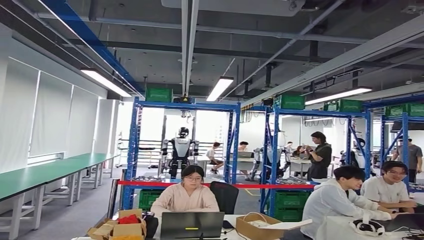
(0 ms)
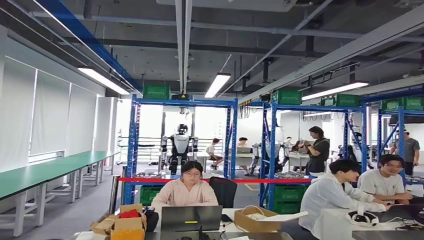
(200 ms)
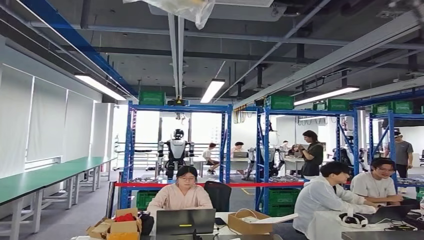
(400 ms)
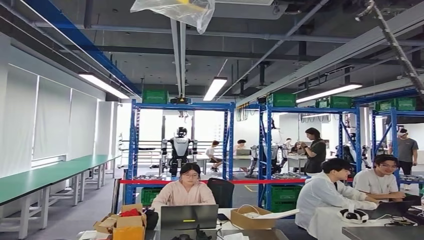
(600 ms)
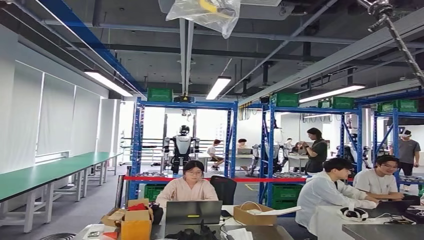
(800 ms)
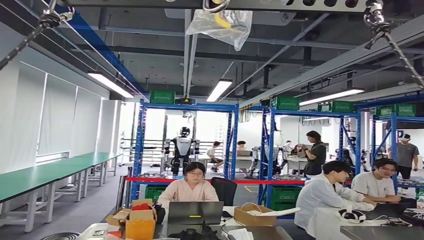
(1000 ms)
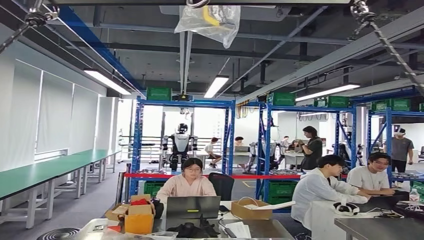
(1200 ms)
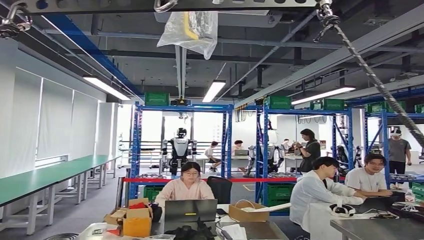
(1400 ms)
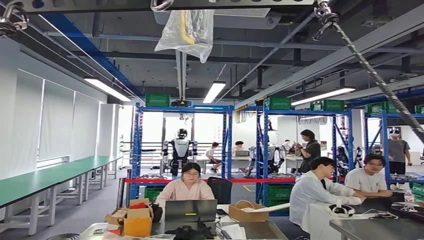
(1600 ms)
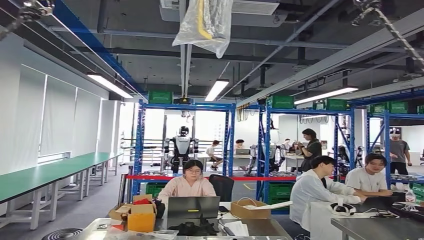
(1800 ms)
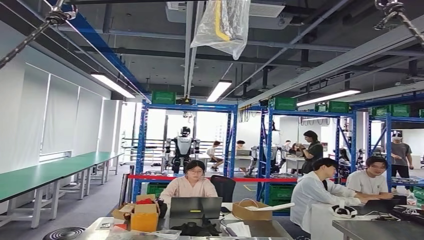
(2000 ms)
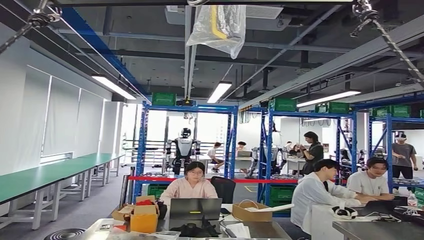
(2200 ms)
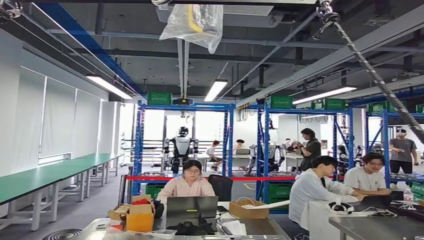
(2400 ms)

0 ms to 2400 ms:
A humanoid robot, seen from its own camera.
Step, 0 ms to 2400 ms: Move to the initial position of the workbench.

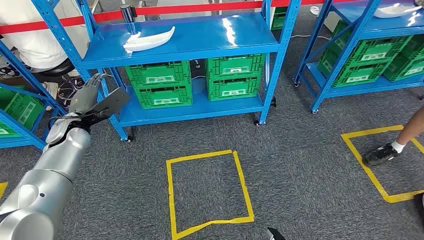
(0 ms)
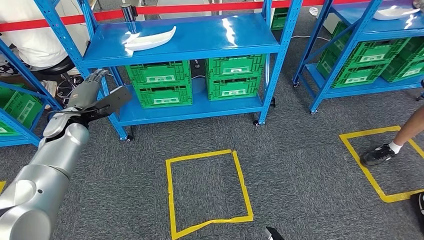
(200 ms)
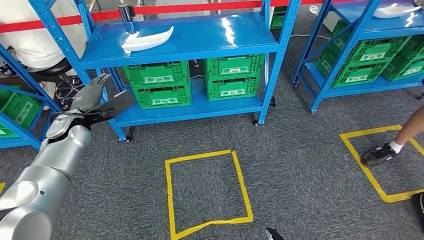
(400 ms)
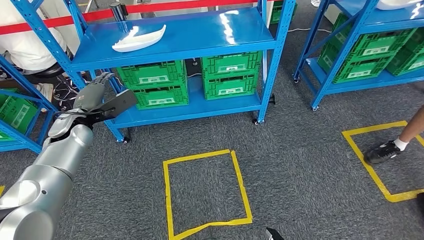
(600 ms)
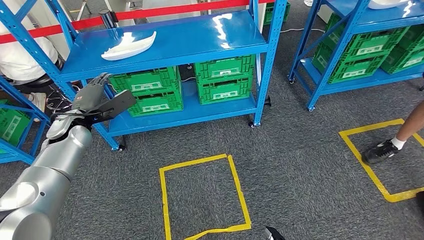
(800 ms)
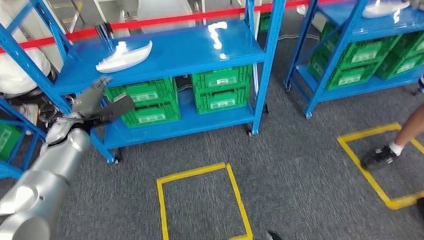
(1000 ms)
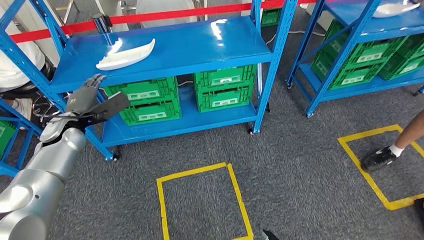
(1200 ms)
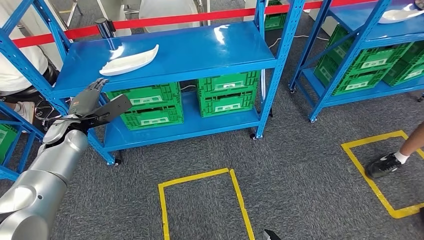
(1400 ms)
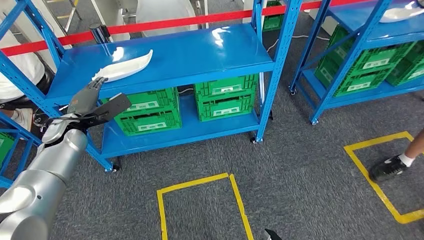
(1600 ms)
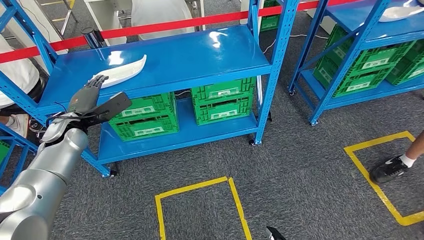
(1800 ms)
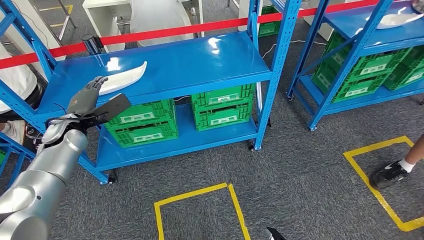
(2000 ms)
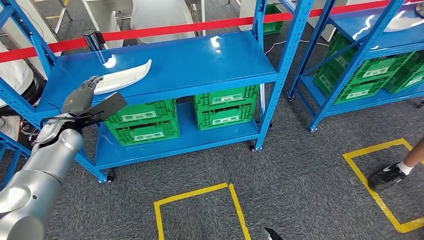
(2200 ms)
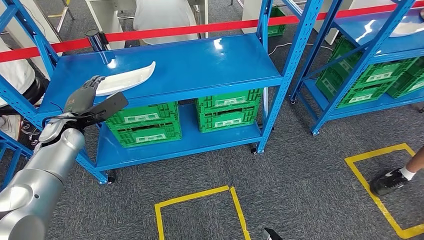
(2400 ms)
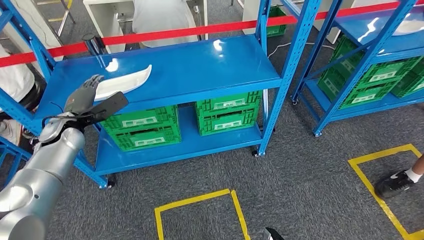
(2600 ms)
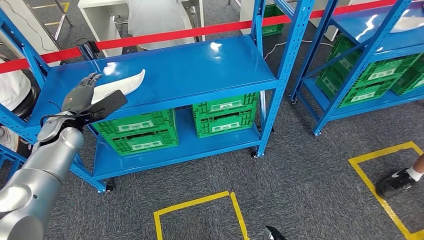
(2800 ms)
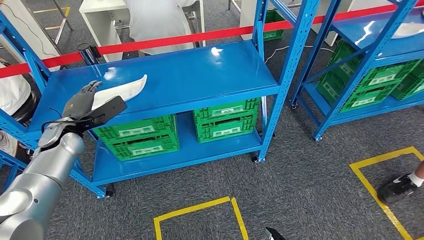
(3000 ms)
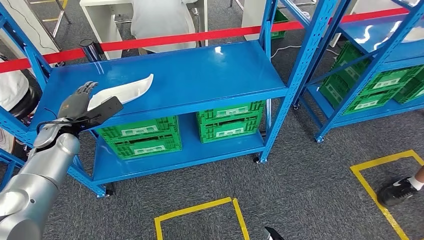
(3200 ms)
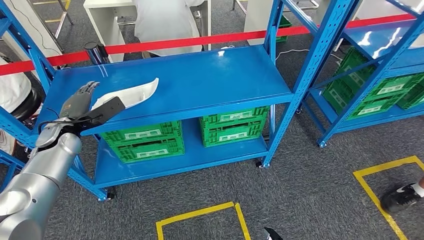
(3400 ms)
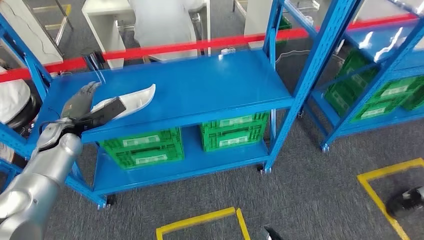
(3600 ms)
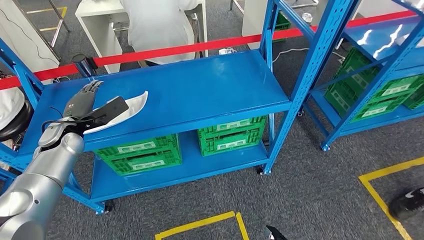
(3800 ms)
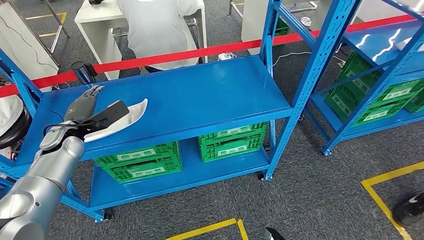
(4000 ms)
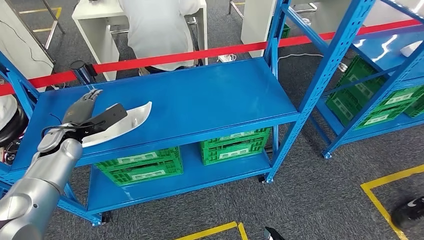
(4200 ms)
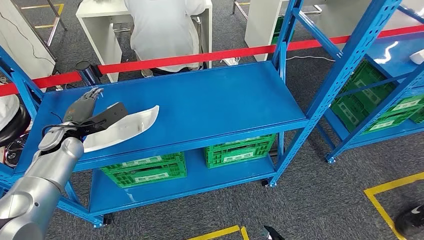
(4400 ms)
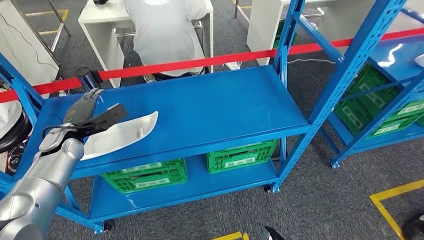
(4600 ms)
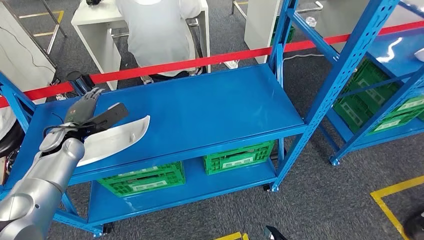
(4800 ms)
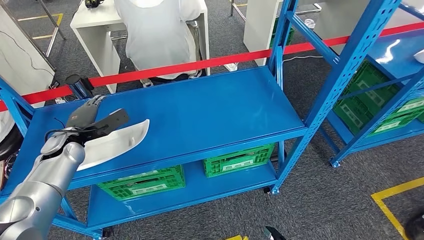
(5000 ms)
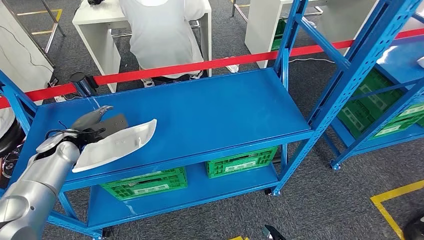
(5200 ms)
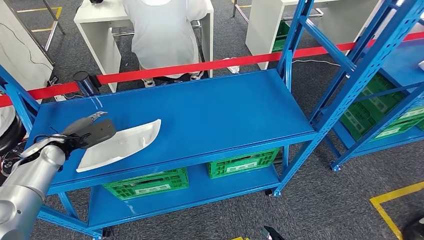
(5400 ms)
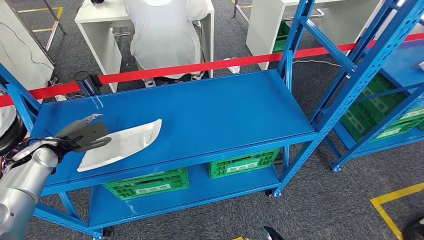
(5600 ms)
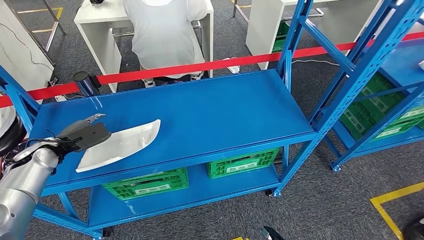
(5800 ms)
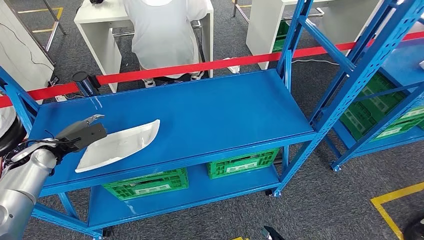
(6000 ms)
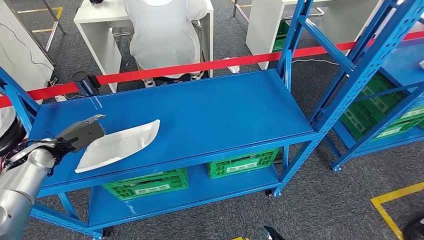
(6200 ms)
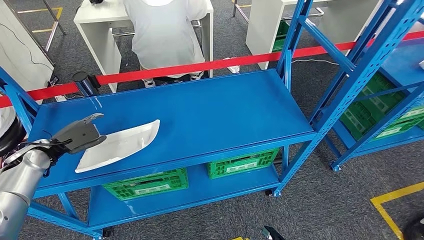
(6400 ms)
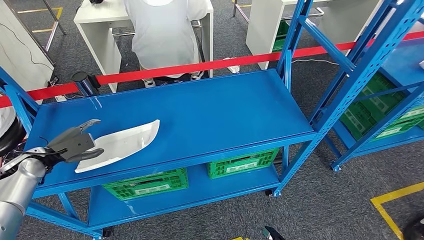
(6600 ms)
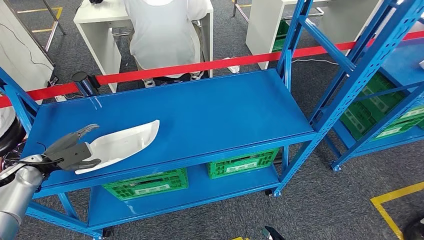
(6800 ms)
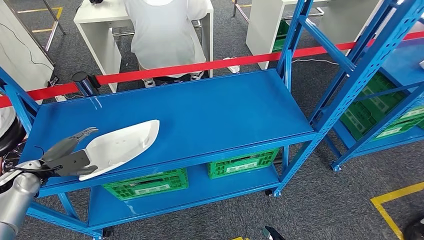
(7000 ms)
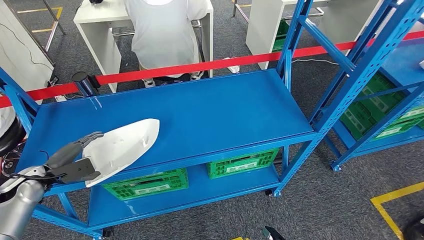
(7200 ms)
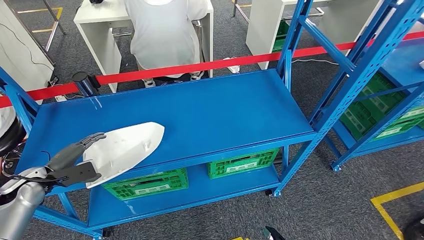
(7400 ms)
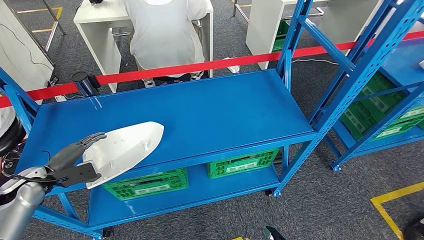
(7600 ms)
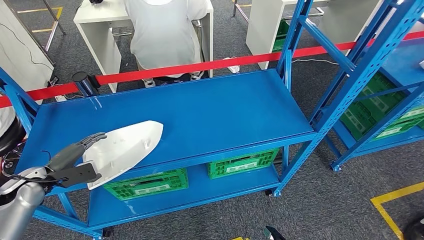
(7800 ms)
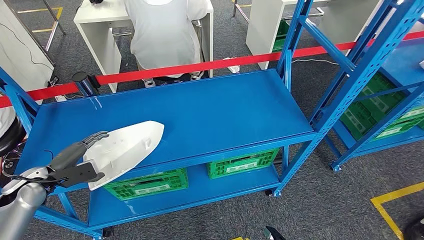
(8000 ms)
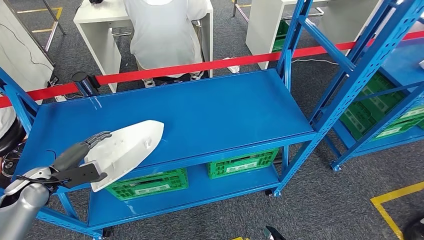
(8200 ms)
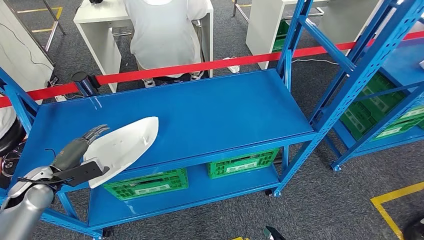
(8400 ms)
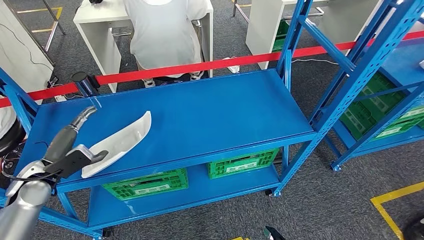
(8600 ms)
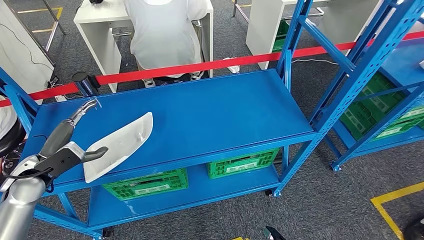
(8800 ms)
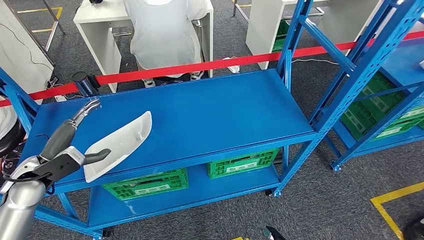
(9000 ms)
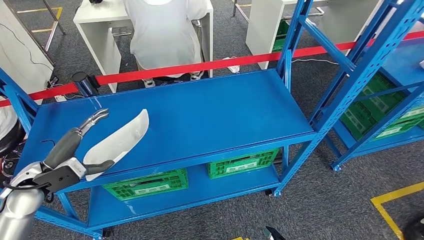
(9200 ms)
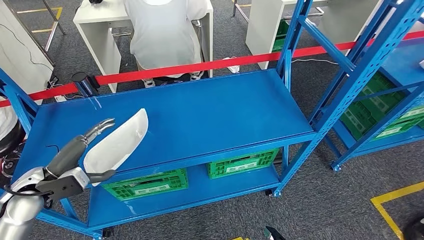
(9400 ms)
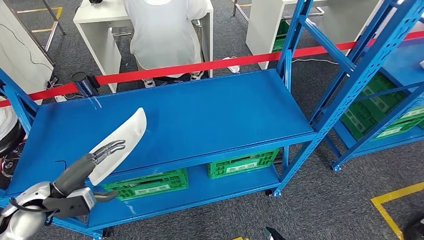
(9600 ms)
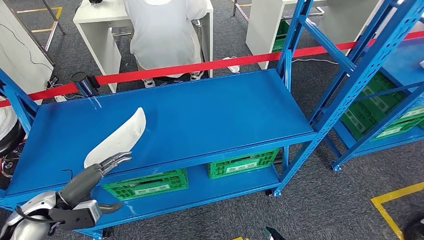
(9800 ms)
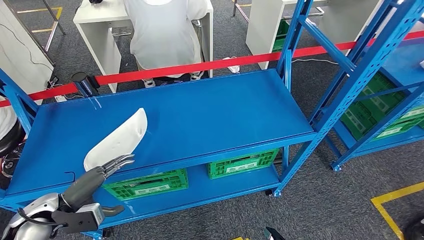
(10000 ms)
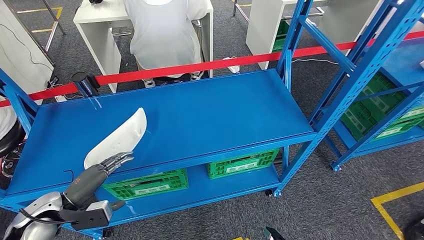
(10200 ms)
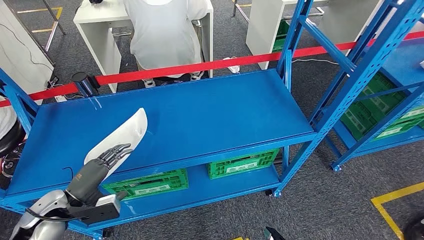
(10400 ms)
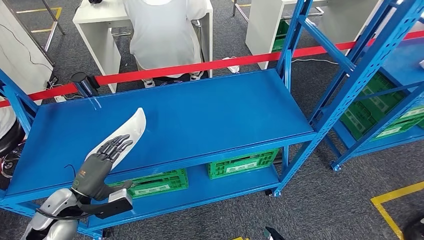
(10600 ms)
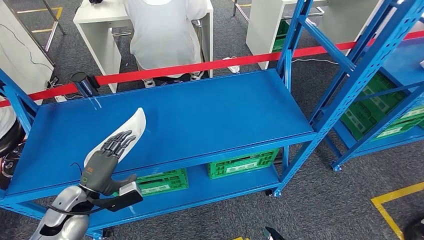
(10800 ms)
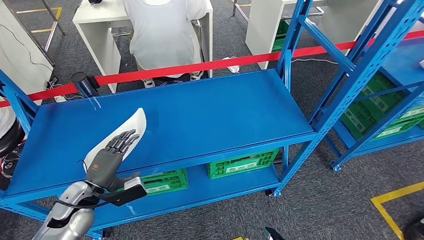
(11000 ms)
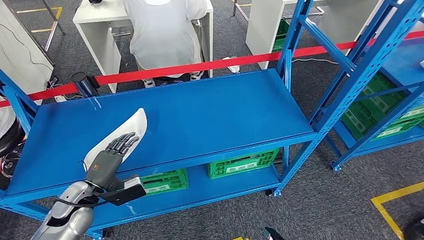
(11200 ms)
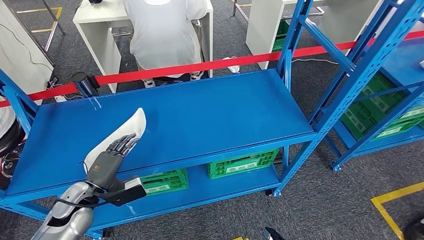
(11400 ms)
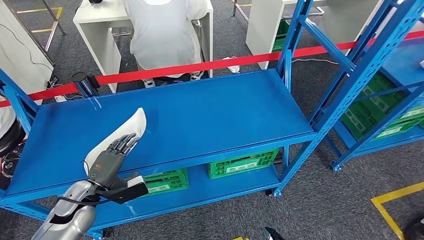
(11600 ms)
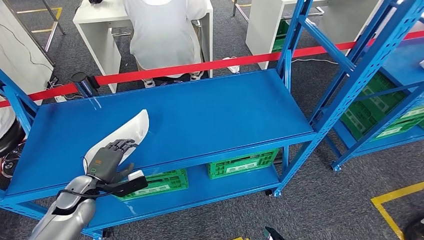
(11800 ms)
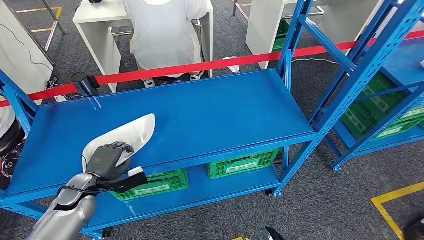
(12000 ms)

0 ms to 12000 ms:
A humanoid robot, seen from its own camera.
6000 ms to 7600 ms: The left hand goes some 5 cm backward.
7600 ms to 9000 ms: The left hand goes about 10 cm to the right and upward.
9000 ms to 10400 ms: The left hand heads backward and downward, covering about 10 cm.
10400 ms to 12000 ms: The left hand shifts approximately 5 cm forward.

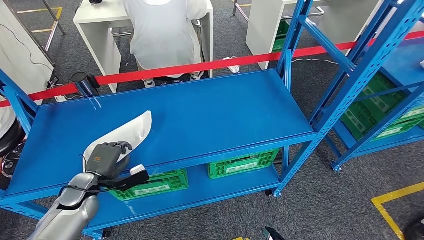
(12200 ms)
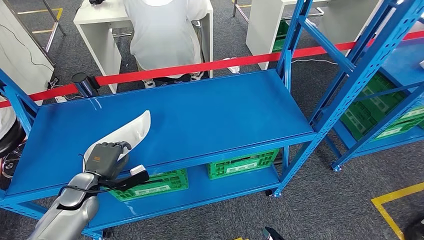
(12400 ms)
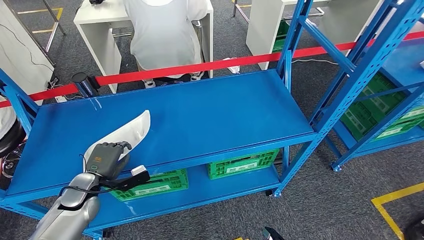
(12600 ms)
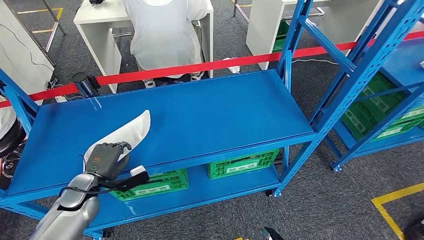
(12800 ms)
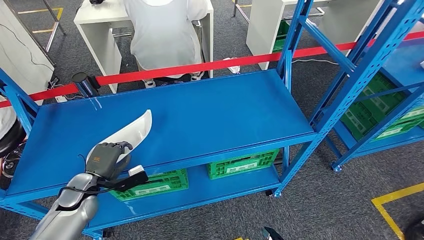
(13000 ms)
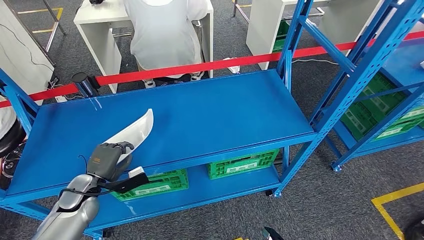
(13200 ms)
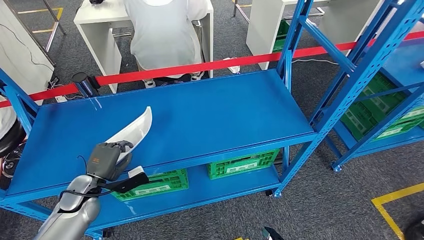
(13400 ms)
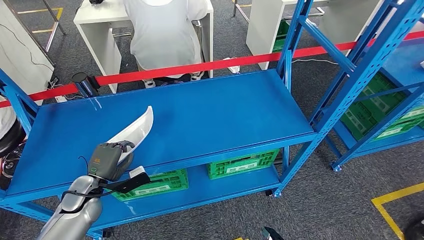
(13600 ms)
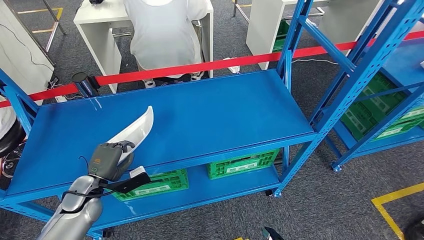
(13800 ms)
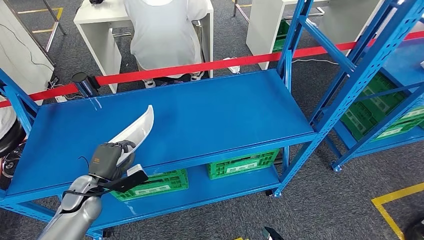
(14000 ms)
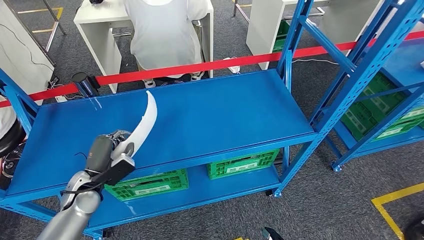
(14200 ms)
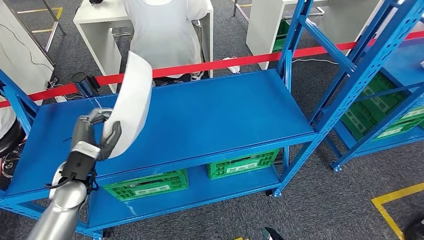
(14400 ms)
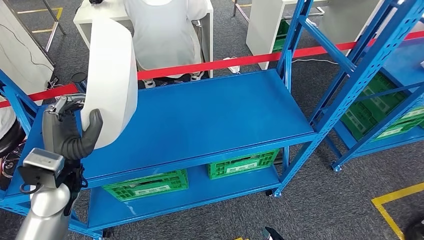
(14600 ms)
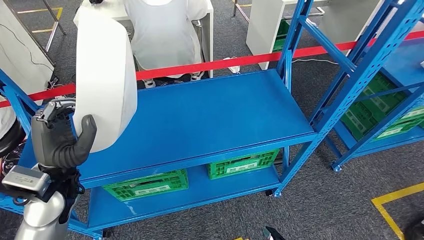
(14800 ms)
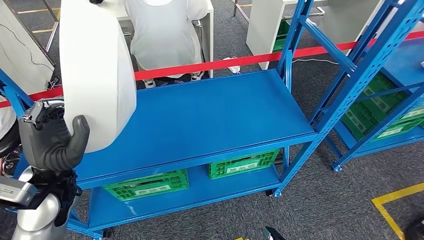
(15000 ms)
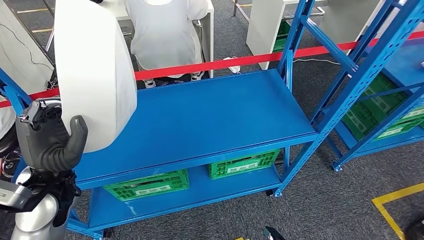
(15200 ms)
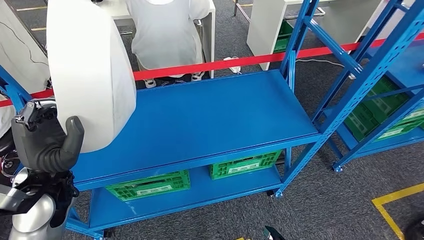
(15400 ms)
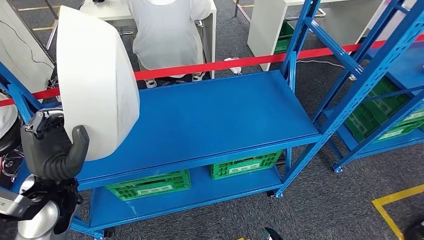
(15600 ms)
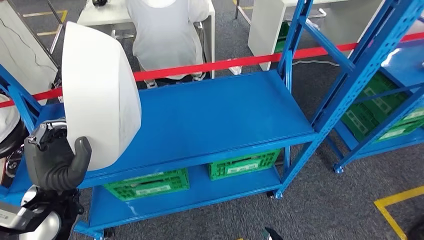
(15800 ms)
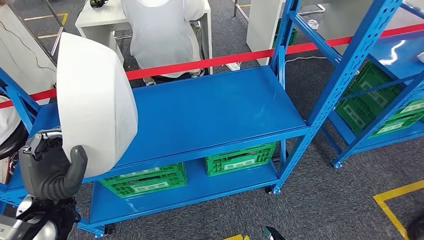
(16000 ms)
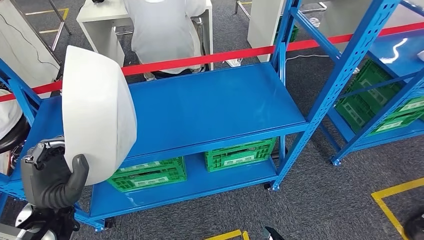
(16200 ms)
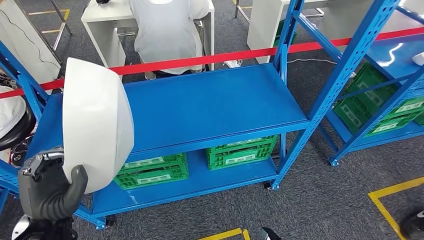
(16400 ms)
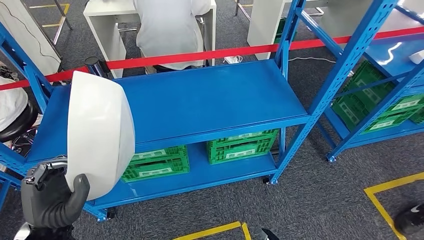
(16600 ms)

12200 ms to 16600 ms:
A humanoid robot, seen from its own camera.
Step, 12200 ms to 15400 ms: Take small components from the rack.
12200 ms to 13600 ms: The hands stay close to where they were, moving slightly.
